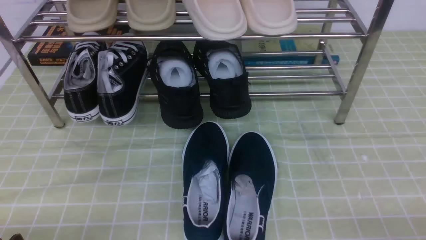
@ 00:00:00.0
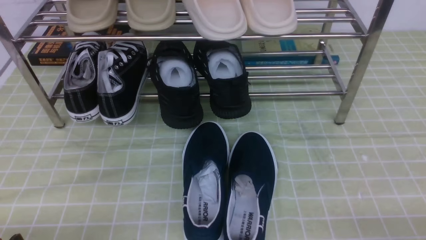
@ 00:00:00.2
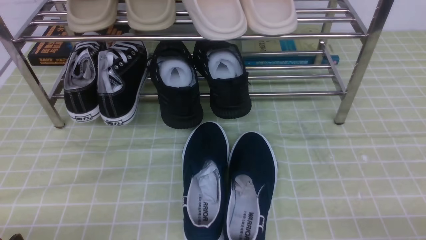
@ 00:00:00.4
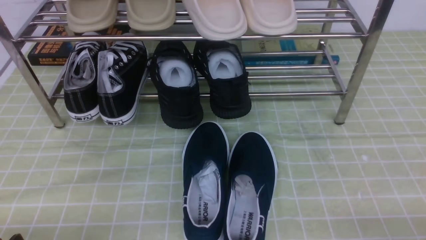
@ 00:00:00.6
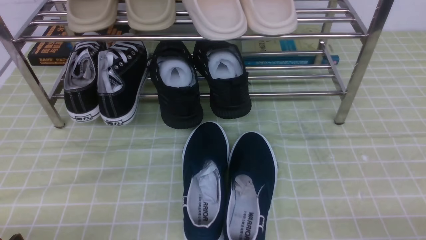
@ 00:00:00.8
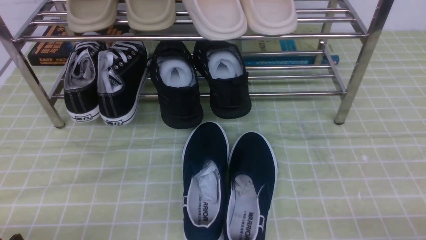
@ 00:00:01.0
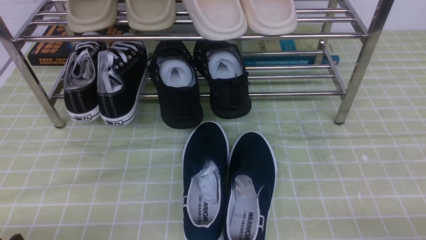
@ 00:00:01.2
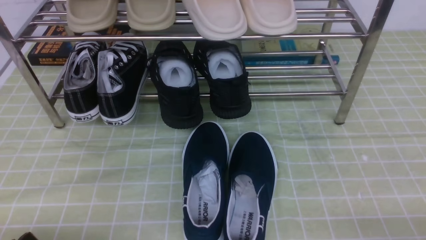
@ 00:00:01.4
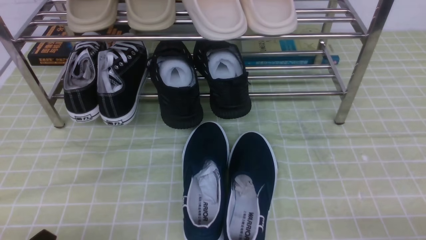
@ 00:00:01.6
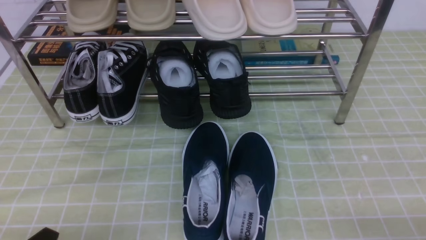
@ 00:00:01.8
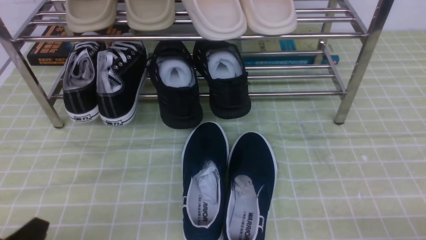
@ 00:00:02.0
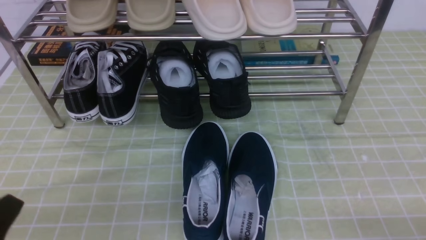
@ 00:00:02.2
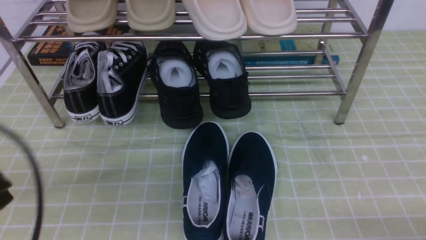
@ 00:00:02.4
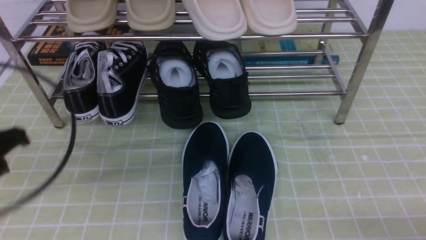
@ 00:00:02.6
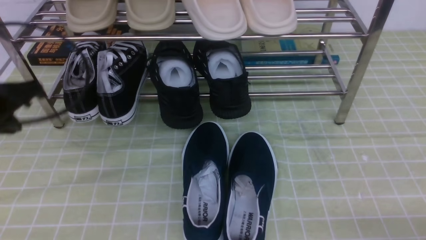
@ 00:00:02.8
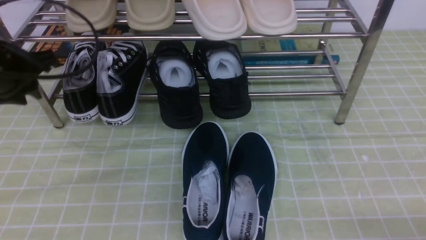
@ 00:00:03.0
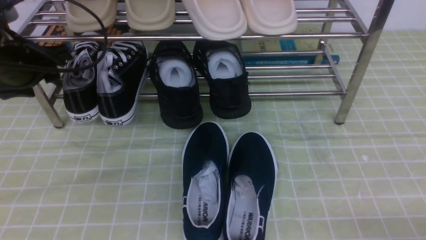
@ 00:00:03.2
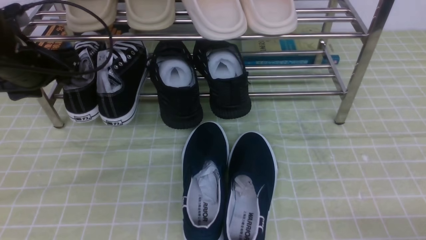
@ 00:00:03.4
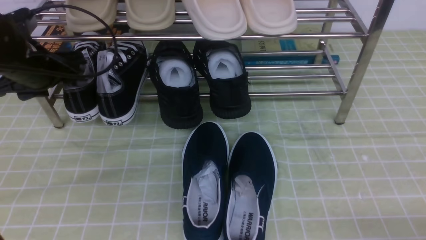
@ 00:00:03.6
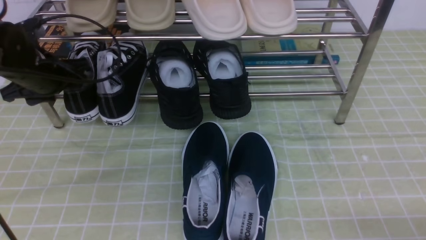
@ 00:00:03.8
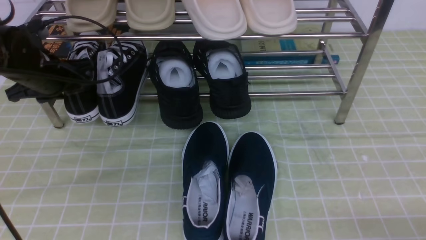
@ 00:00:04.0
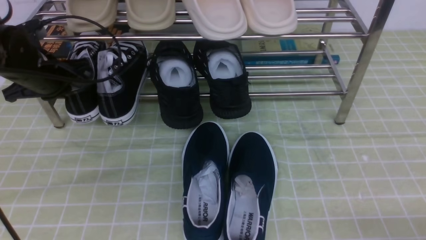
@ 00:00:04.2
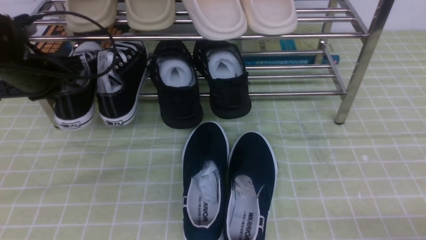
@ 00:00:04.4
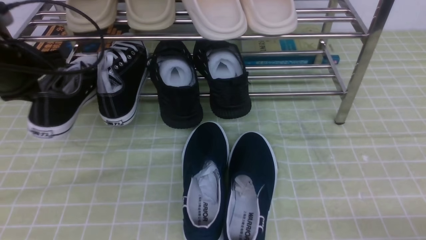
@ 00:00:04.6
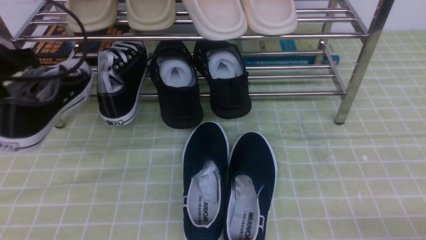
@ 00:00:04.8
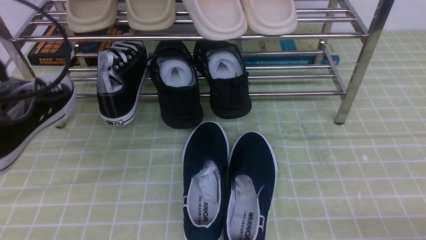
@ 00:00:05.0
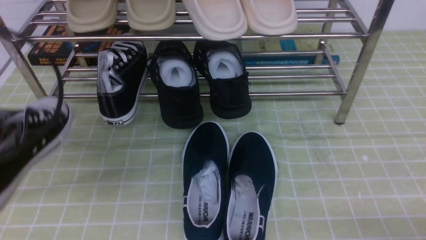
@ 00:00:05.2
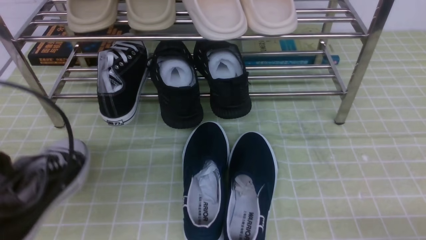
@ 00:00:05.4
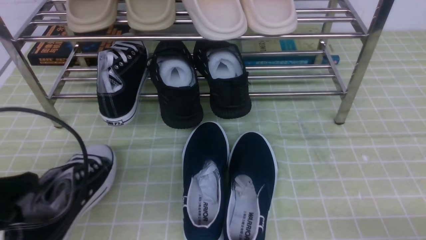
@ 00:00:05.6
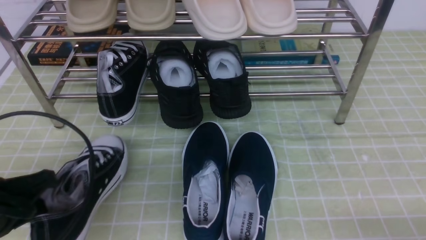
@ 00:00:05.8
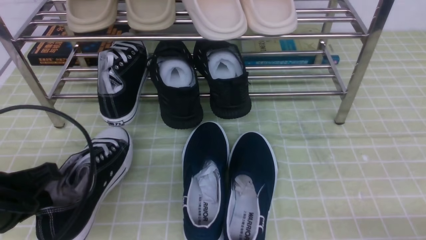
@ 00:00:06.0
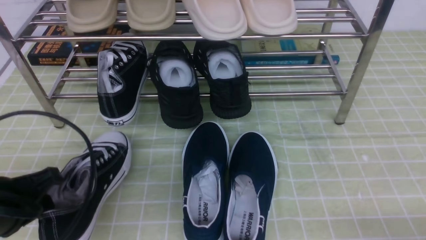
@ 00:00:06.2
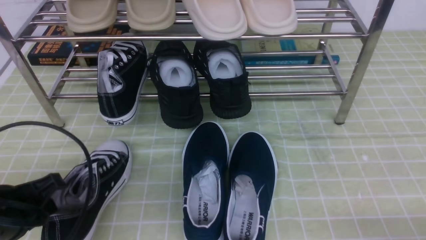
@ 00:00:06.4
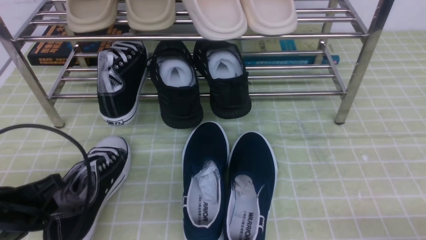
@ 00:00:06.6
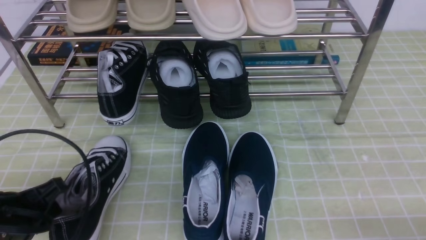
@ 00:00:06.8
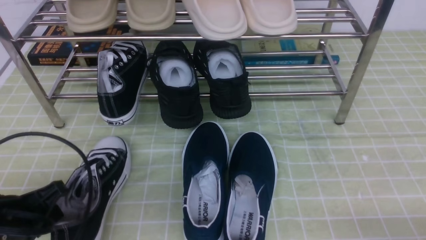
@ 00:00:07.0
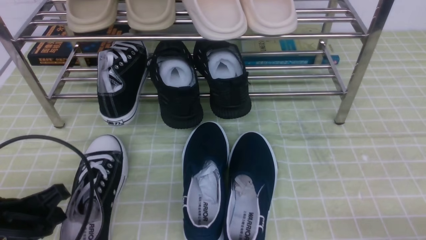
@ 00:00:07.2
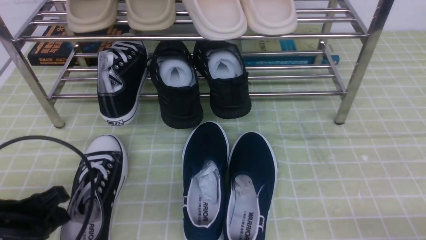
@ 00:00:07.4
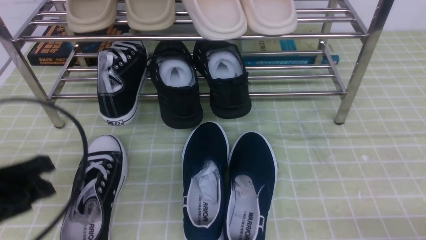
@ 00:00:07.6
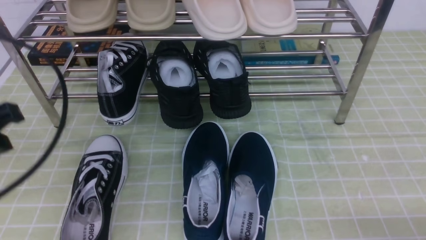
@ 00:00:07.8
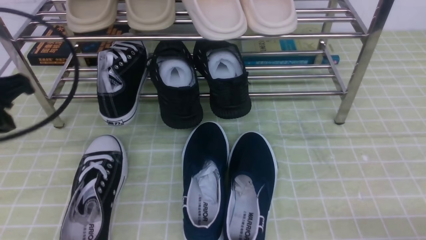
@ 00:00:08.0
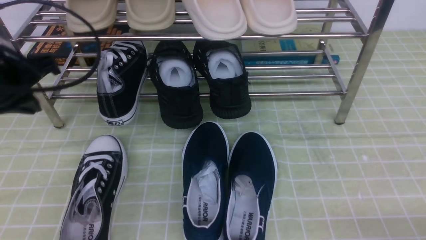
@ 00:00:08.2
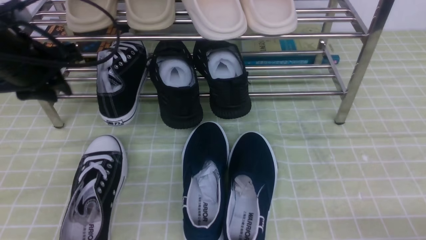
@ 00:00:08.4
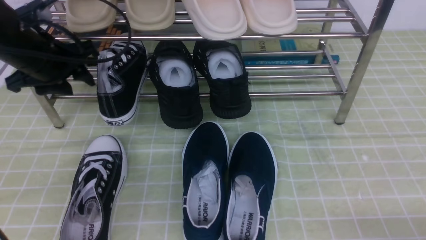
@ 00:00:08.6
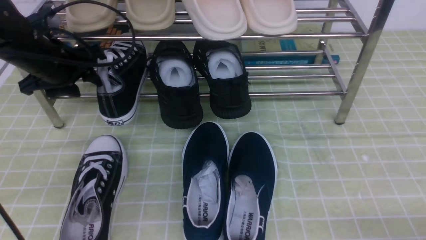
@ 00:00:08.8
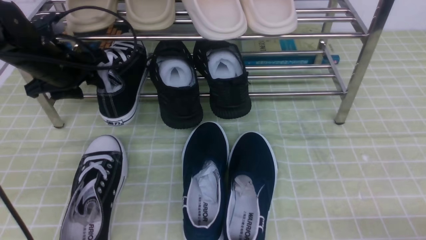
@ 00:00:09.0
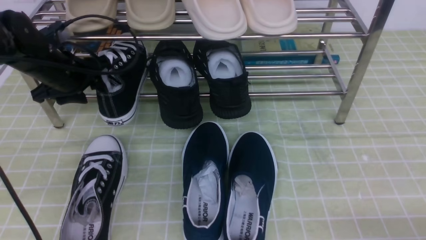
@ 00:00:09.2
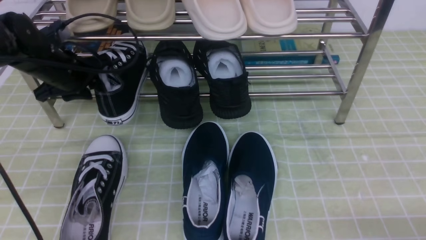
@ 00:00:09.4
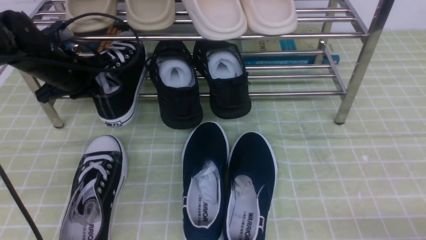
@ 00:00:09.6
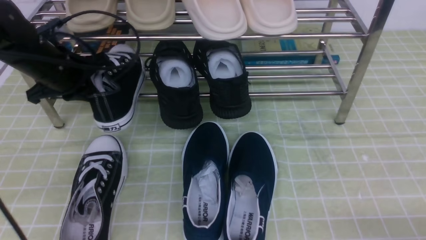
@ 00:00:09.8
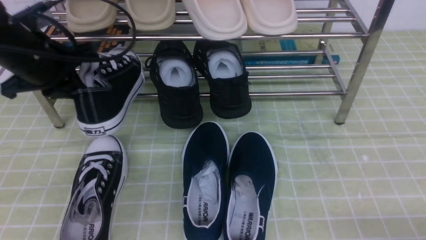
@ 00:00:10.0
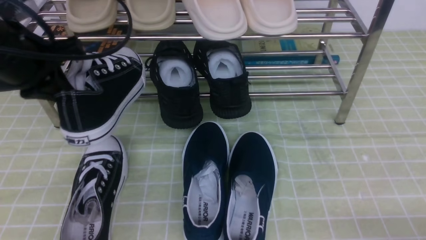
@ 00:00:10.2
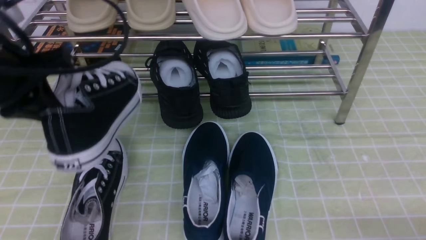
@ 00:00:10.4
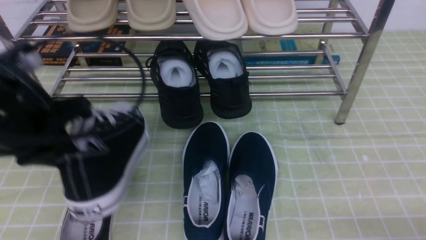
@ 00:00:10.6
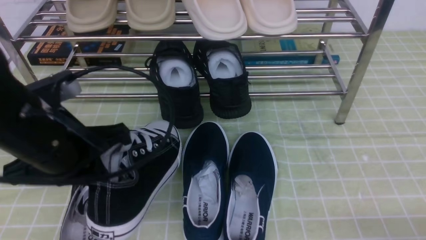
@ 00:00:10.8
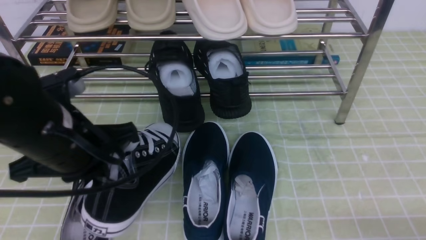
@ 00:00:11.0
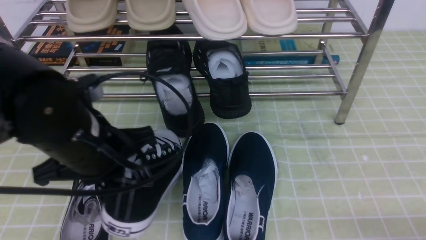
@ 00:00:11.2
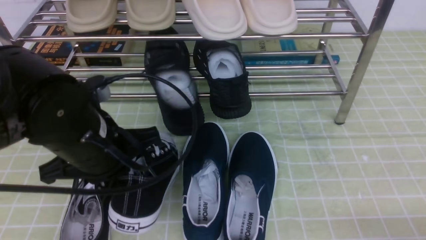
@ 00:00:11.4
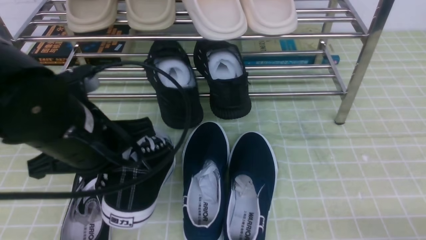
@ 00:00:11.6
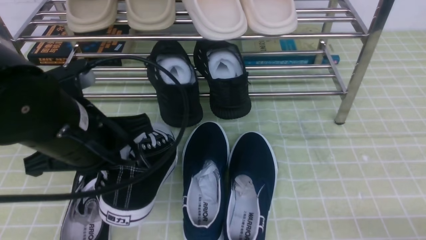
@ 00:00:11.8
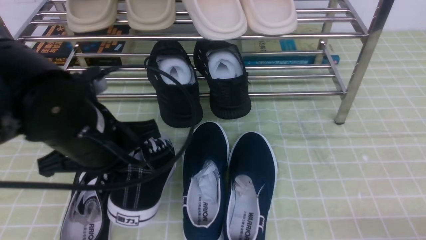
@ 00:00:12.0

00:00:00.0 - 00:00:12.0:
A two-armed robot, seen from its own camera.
Step, 00:00:00.0 - 00:00:04.2: use the left arm to clamp a shoe on the left side of the shoe rack.
Step, 00:00:04.4 - 00:00:07.4: Use your left arm to remove the clamped shoe from the shoe rack and put it down.
Step, 00:00:07.6 - 00:00:09.6: use the left arm to clamp a shoe on the left side of the shoe rack.
00:00:01.6 - 00:00:03.0: The left gripper heads forward and upward, covering approximately 30 cm, and closes, then reopens.
00:00:03.0 - 00:00:04.4: The left gripper closes its fingers.
00:00:04.4 - 00:00:06.0: The left gripper goes about 20 cm backward.
00:00:06.0 - 00:00:07.6: The left gripper opens up.
00:00:07.6 - 00:00:09.0: The left gripper goes some 25 cm forward, and closes and opens again.
00:00:09.0 - 00:00:10.4: The left gripper moves backward and upward, about 15 cm, and closes up.
00:00:10.4 - 00:00:12.0: The left gripper goes some 10 cm to the right and downward.

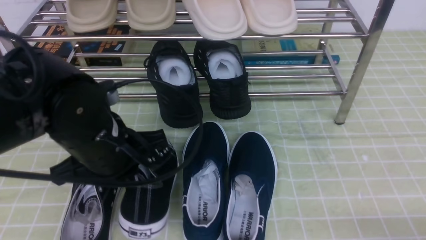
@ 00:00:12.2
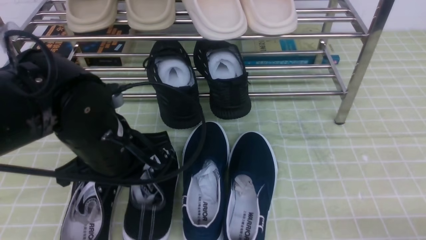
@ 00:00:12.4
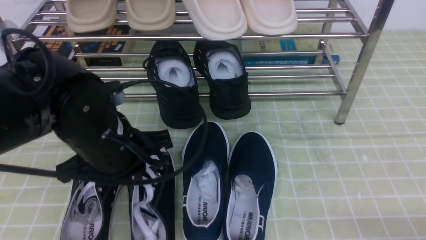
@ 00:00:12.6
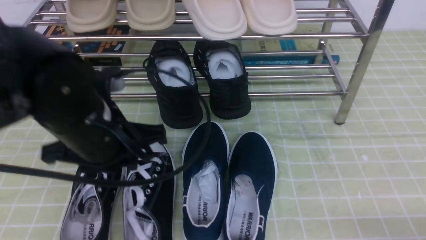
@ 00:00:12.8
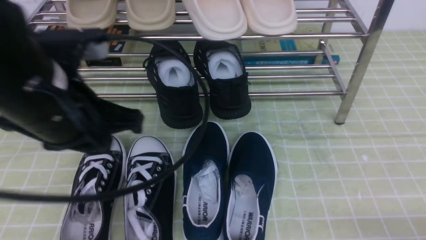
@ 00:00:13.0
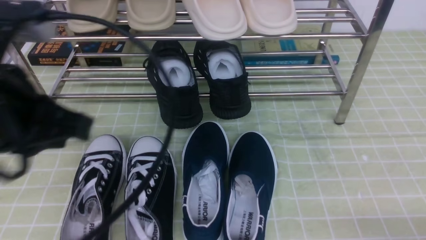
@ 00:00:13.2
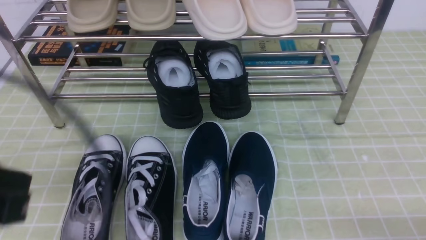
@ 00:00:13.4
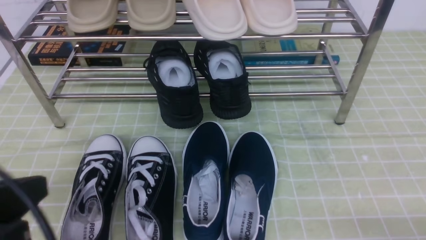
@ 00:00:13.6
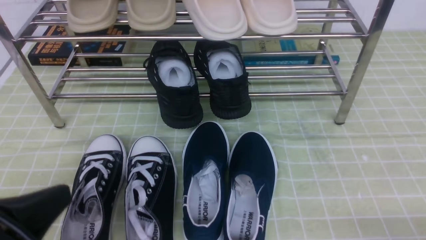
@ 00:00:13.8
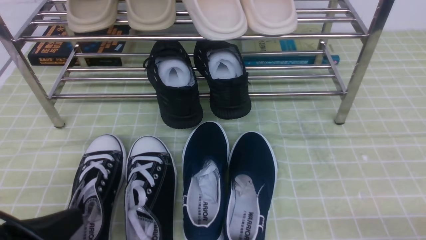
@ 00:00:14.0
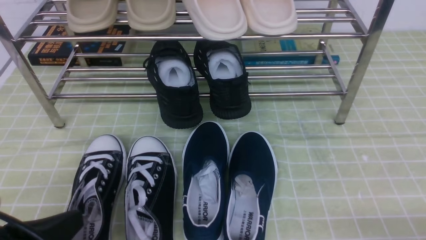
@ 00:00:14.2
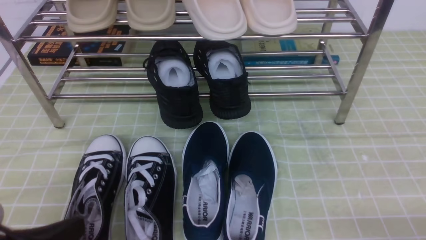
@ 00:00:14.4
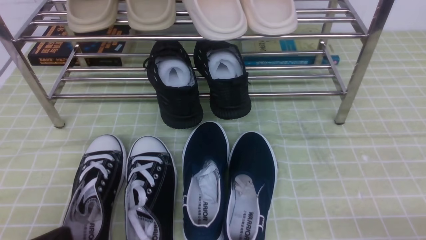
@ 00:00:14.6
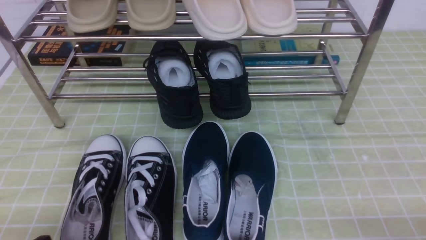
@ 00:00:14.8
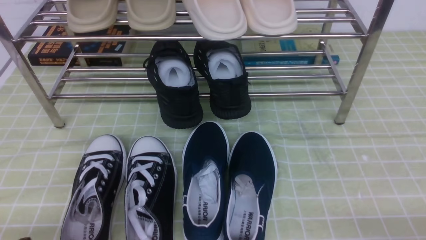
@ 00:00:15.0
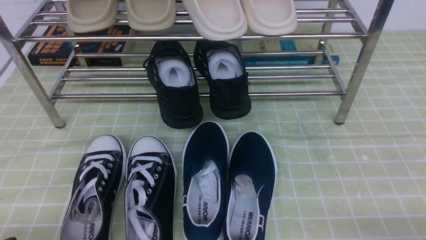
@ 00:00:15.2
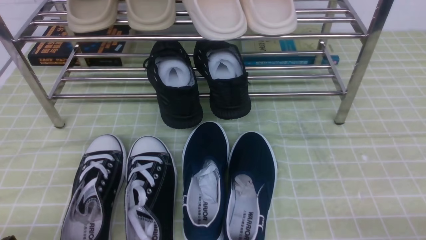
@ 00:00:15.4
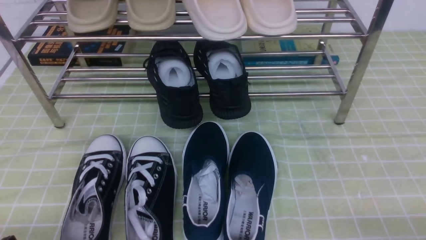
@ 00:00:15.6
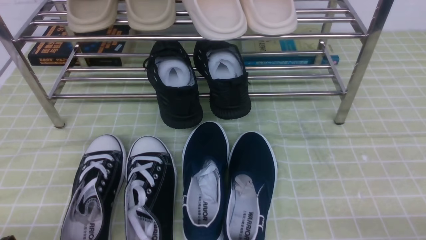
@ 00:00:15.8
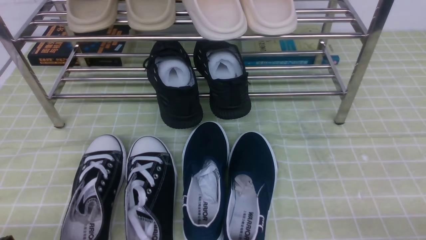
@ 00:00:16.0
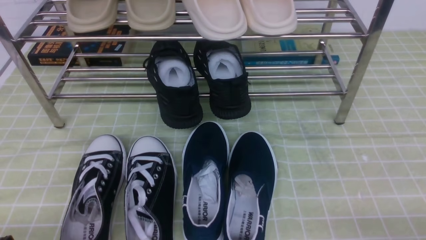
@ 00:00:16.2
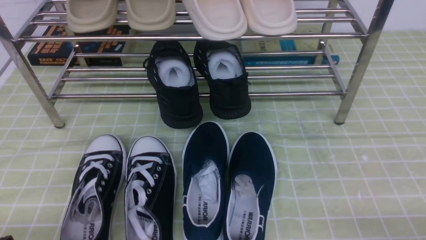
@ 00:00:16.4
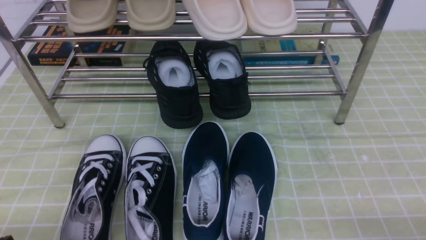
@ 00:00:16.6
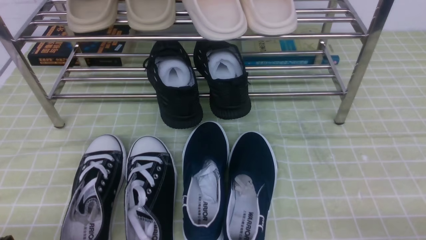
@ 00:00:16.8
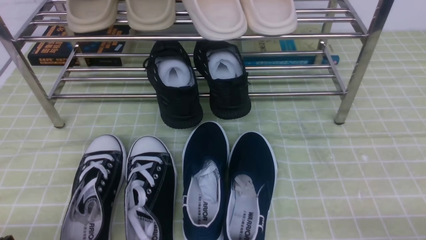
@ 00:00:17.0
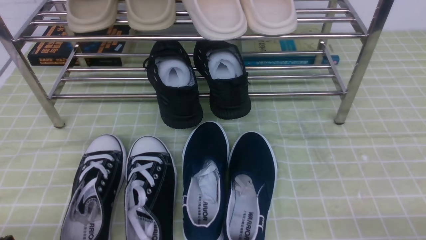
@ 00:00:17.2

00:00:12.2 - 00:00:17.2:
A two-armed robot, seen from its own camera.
00:00:12.2 - 00:00:13.8: The left gripper heads backward and to the left, covering roughly 20 cm.
00:00:13.8 - 00:00:15.6: The left gripper heads downward, covering about 10 cm.
00:00:15.6 - 00:00:17.2: Both grippers stay put.
